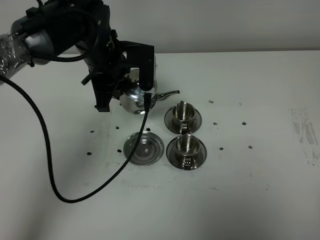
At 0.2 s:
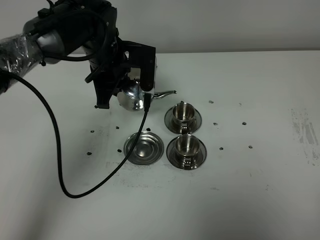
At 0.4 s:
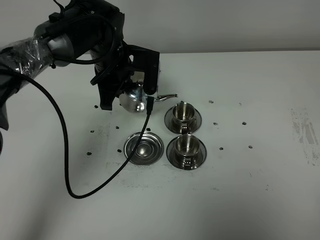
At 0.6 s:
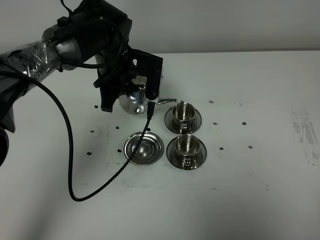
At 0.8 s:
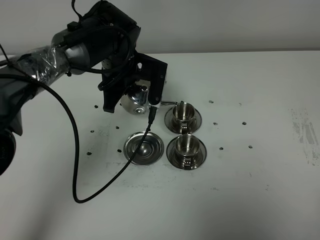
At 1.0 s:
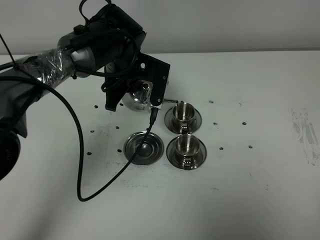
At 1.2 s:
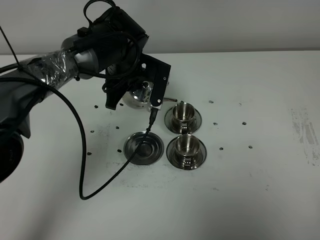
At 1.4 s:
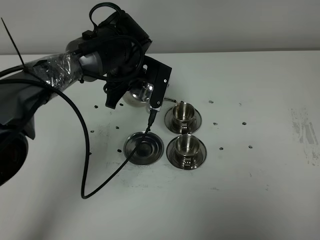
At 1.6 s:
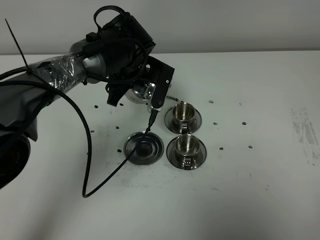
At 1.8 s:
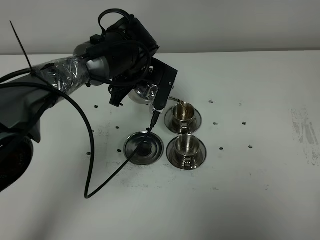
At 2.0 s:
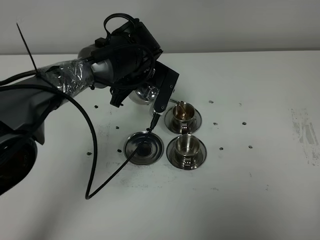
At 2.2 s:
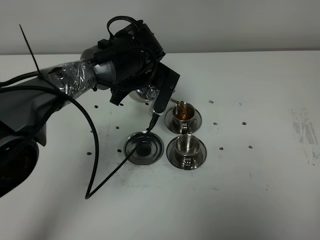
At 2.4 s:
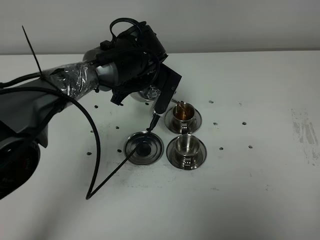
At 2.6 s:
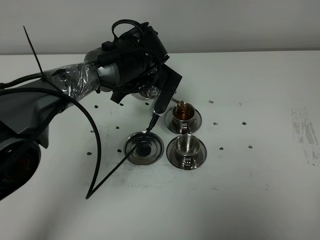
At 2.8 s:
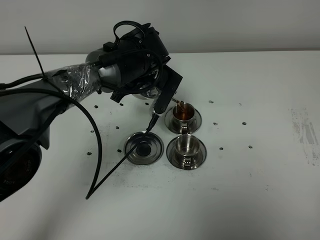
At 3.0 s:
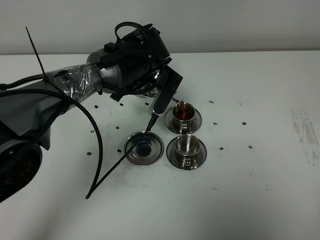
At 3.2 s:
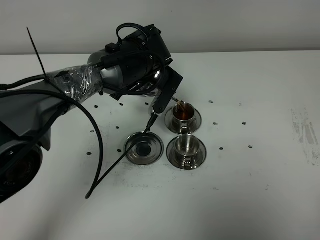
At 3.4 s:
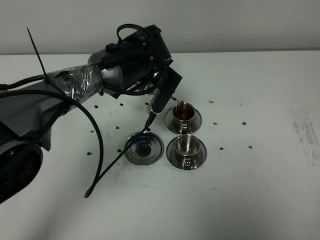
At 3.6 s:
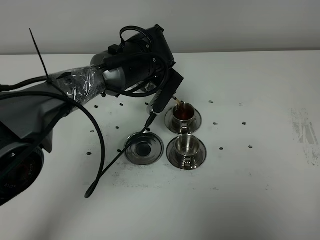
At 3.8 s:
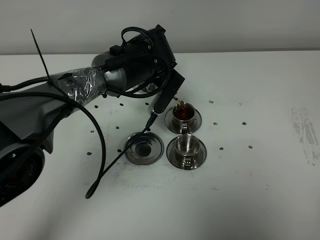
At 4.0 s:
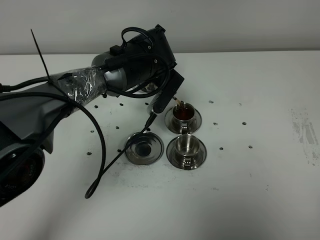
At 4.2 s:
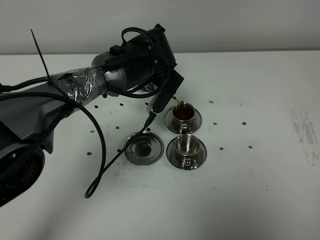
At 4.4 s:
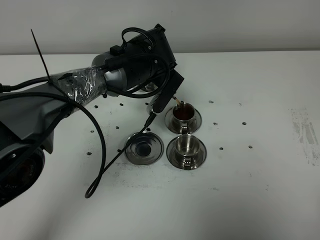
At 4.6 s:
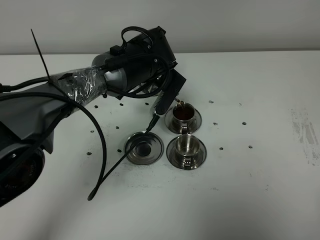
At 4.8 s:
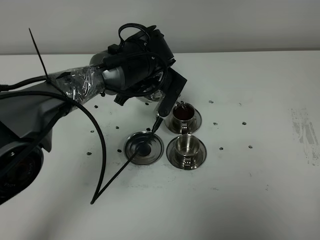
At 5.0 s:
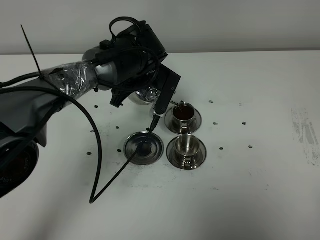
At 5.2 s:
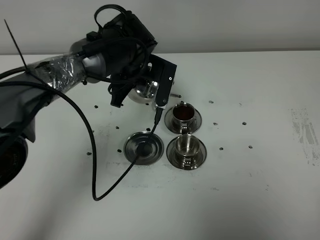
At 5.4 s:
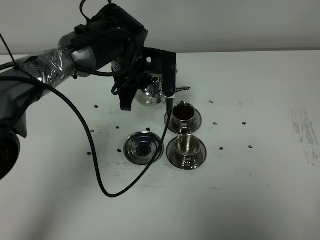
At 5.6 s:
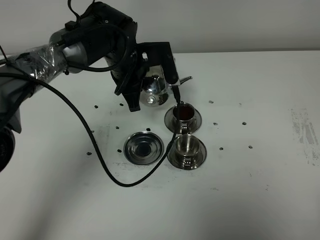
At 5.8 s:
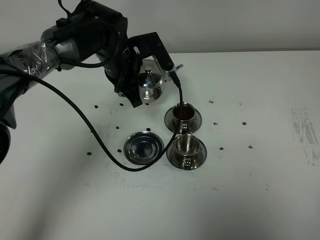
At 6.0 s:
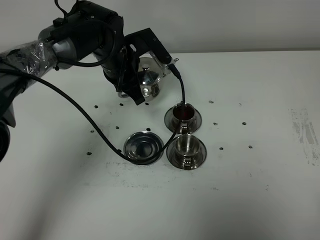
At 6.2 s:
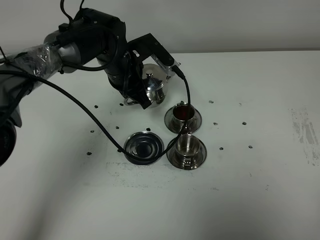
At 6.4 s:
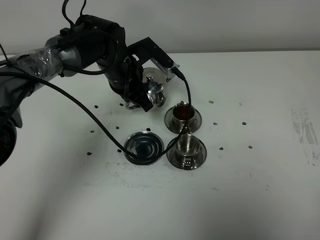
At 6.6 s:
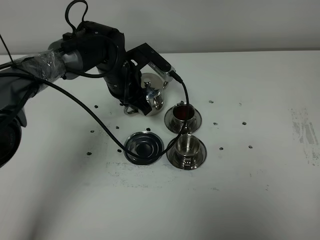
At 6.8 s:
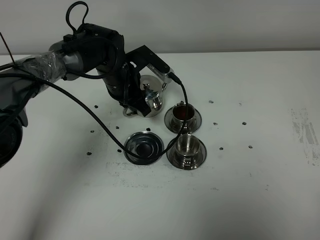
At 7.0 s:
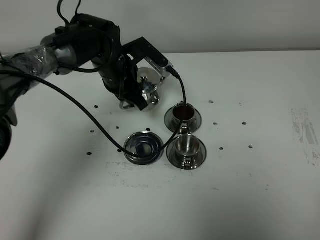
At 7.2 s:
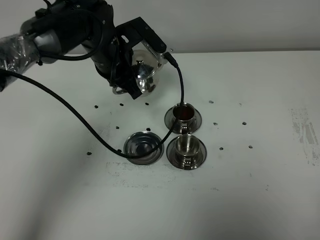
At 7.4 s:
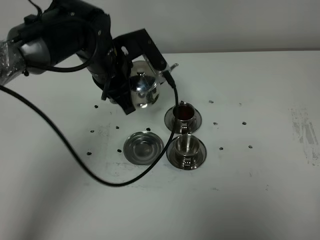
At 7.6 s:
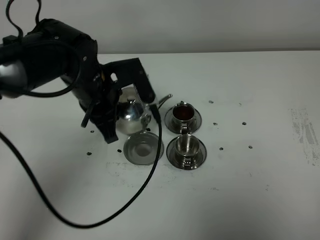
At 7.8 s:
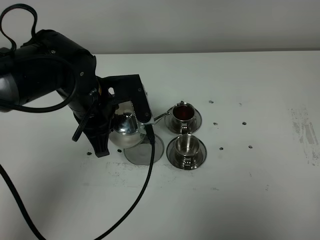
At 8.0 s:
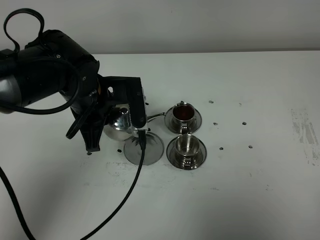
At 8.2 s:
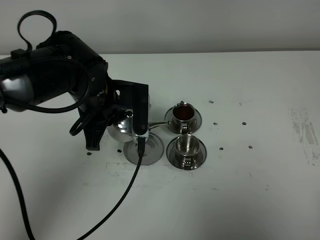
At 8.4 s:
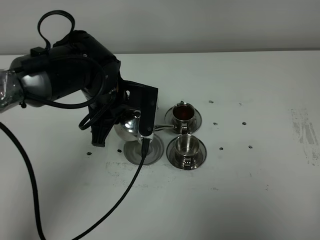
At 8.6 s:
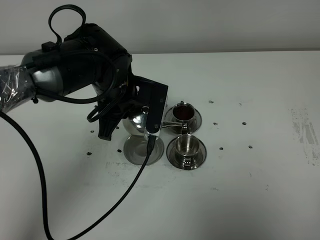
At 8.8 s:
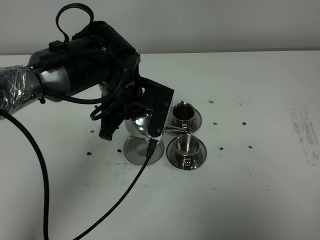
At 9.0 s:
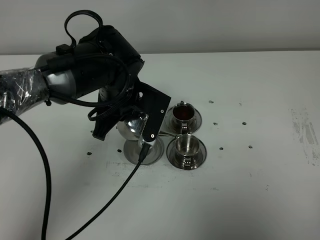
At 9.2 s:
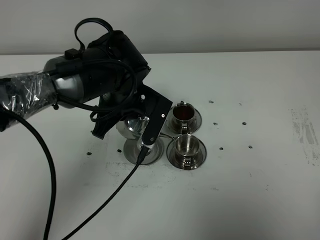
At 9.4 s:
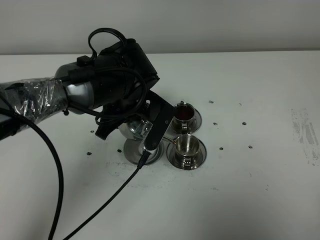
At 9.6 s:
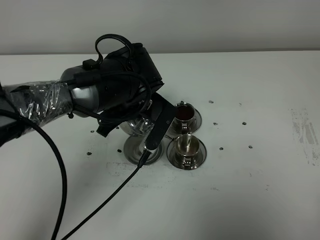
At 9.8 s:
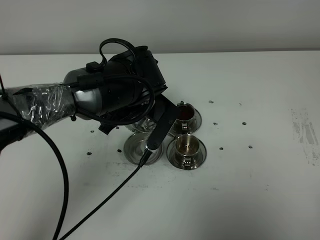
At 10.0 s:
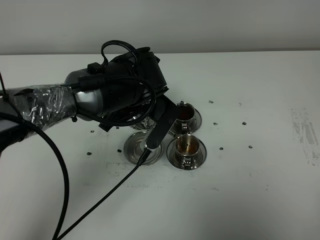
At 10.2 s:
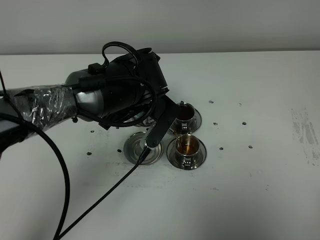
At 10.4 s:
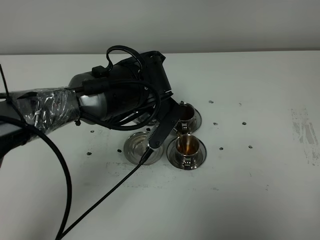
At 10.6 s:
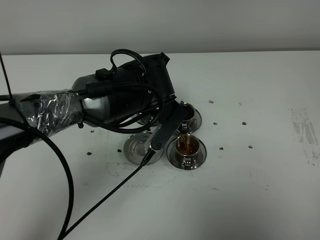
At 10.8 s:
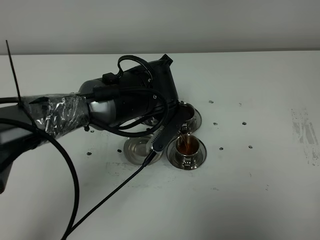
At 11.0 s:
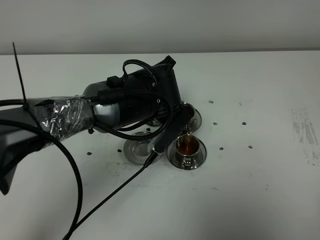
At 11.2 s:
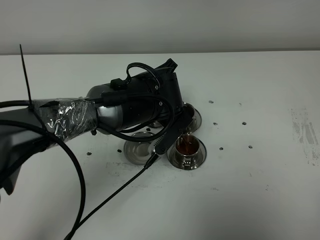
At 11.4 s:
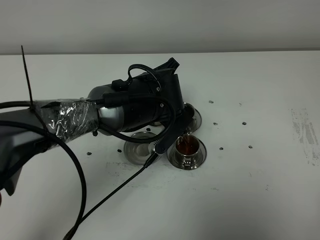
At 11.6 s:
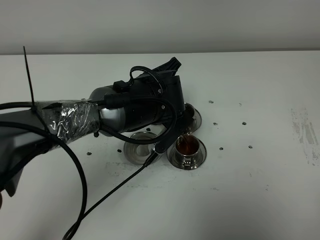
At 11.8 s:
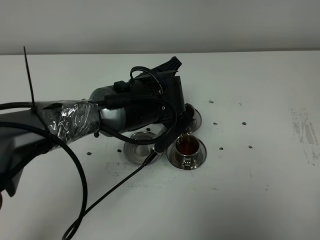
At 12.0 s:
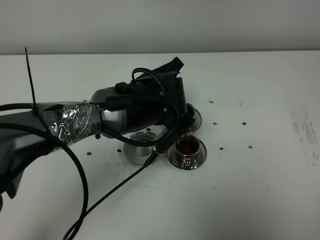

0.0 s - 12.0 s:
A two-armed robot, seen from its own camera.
Task of the whole recording: grasp the stainless steel teapot and pour the tea into the two stainless steel teacups one by one, put the stainless steel teapot back in its original place.
Step, 0.0 s - 5.2 s: Pour tea into the teacup with the left gripper.
0.0 s - 1.6 s: The left gripper changes place by approximately 5 cm.
1.6 s - 4.4 s: The grippers move only a little.
4.4 s - 6.0 s: The left gripper is displaced to the left by approximately 5 cm.
6.0 s - 7.6 s: The left gripper shifts some 10 cm backward.
7.6 s - 9.0 s: The left gripper shifts by approximately 5 cm.
10.4 s - 12.0 s: There are only small adjustments of the grippers.

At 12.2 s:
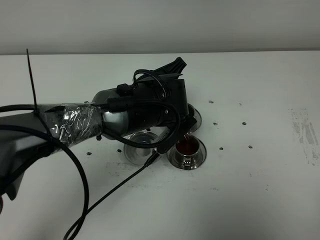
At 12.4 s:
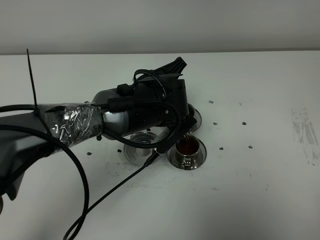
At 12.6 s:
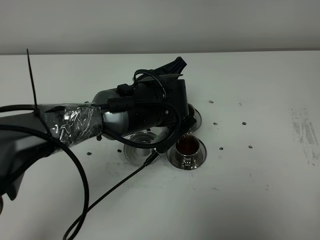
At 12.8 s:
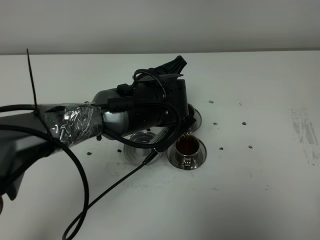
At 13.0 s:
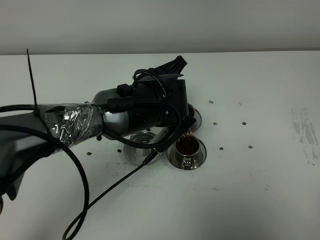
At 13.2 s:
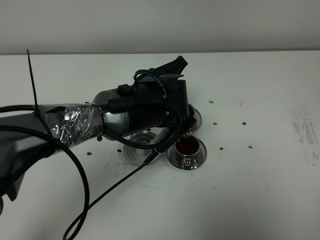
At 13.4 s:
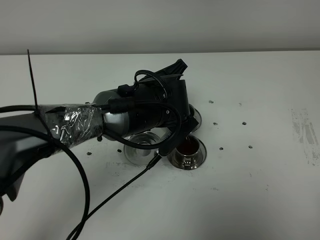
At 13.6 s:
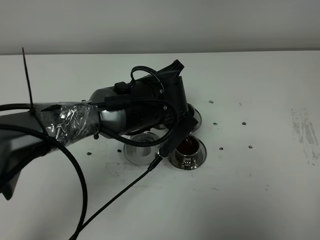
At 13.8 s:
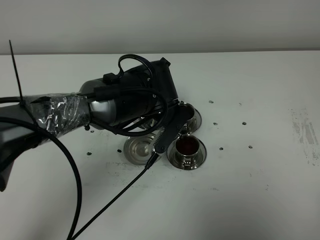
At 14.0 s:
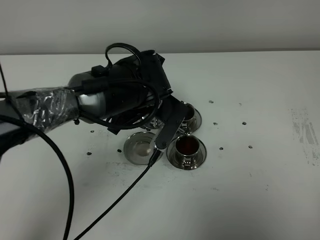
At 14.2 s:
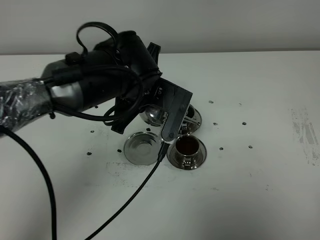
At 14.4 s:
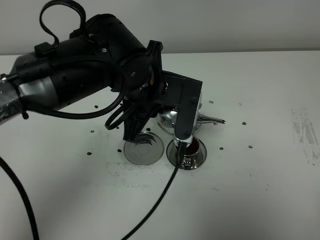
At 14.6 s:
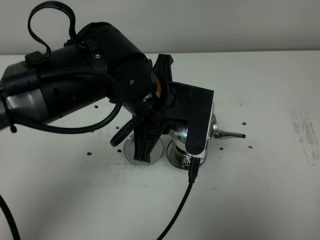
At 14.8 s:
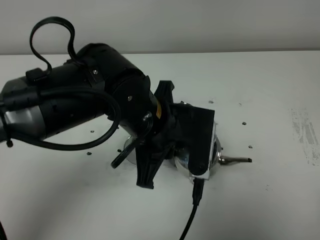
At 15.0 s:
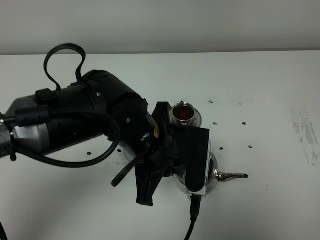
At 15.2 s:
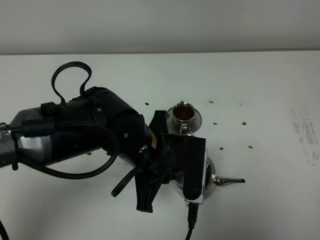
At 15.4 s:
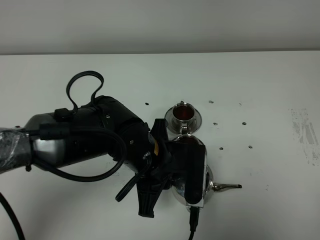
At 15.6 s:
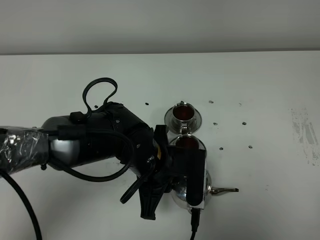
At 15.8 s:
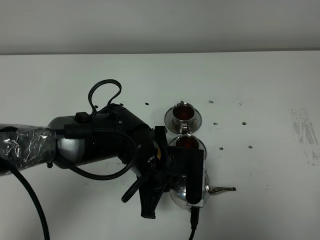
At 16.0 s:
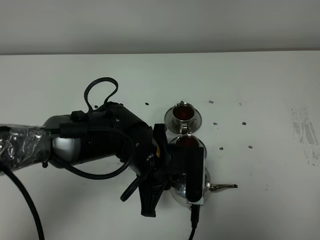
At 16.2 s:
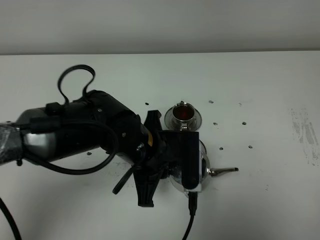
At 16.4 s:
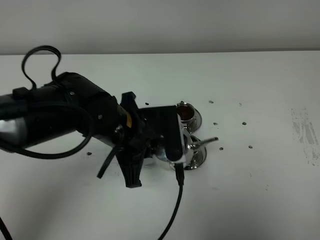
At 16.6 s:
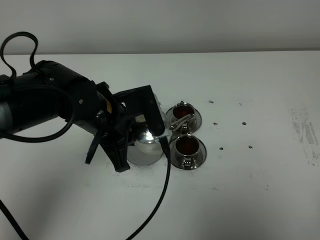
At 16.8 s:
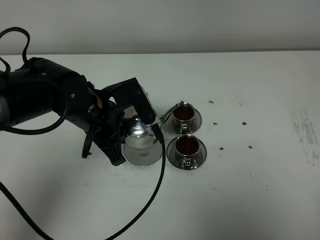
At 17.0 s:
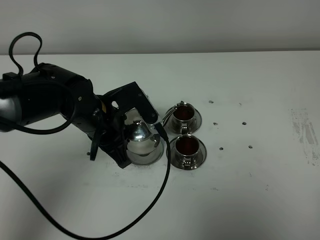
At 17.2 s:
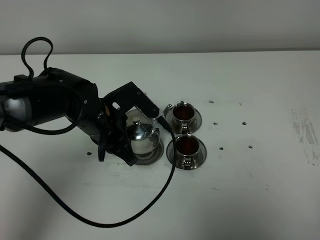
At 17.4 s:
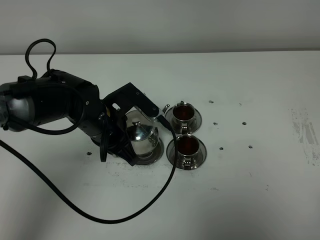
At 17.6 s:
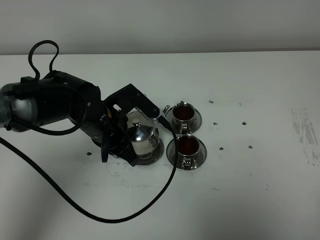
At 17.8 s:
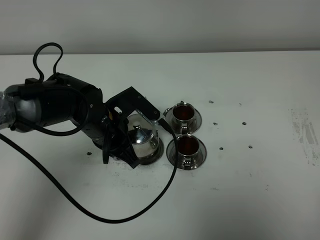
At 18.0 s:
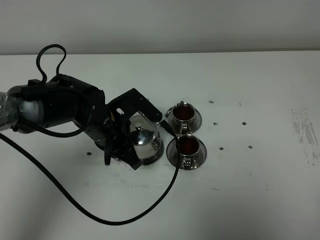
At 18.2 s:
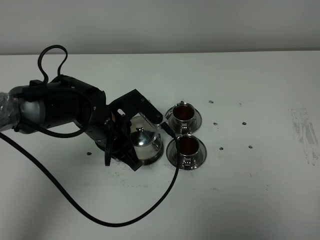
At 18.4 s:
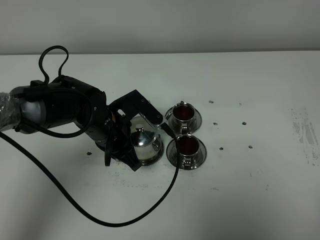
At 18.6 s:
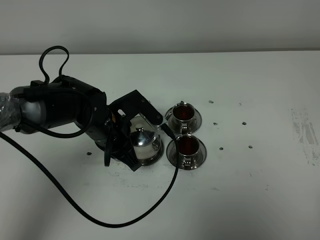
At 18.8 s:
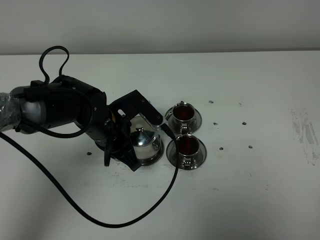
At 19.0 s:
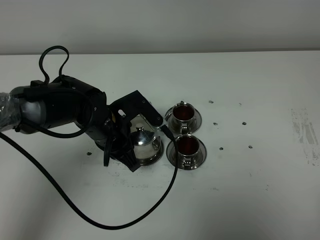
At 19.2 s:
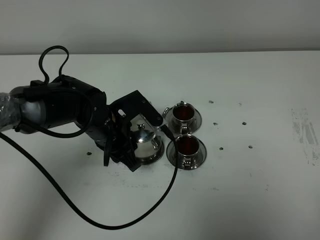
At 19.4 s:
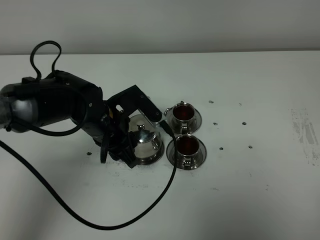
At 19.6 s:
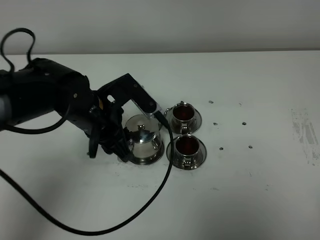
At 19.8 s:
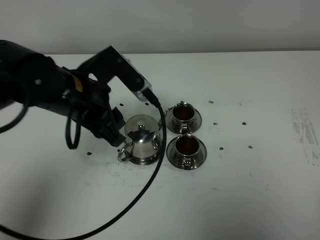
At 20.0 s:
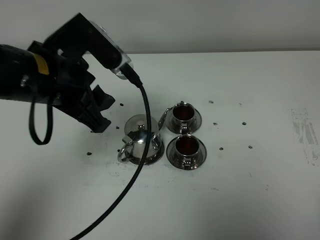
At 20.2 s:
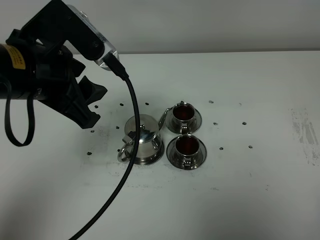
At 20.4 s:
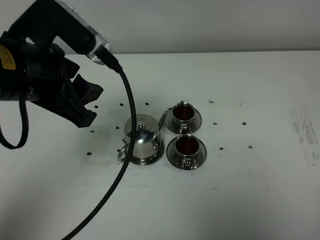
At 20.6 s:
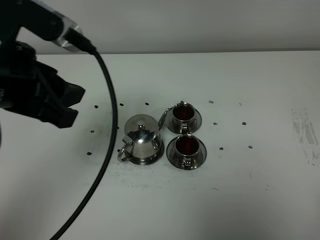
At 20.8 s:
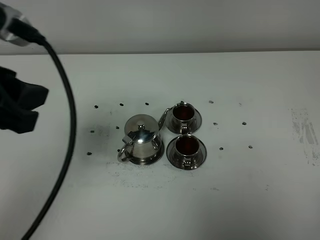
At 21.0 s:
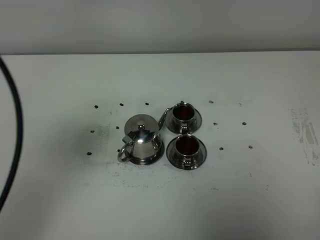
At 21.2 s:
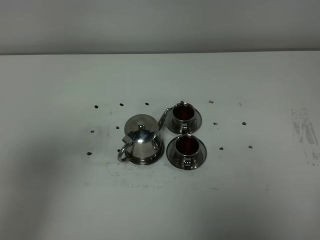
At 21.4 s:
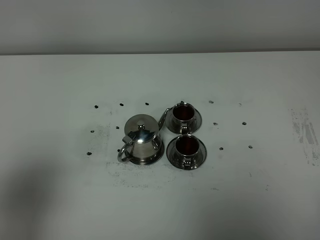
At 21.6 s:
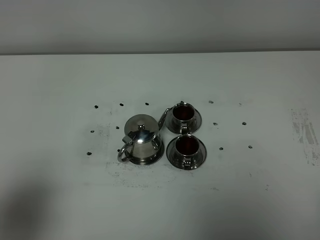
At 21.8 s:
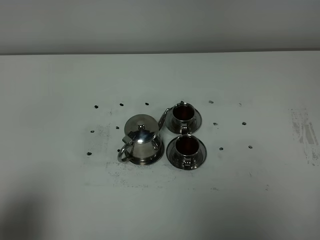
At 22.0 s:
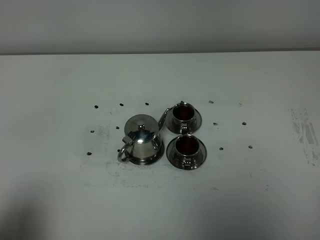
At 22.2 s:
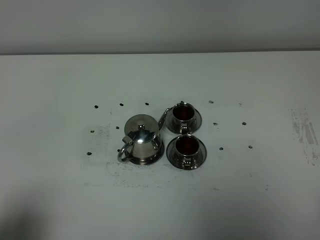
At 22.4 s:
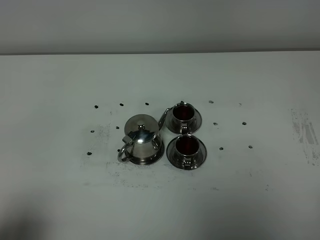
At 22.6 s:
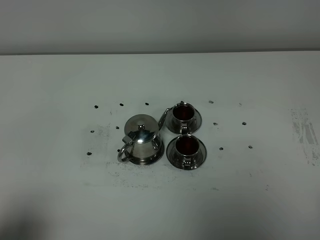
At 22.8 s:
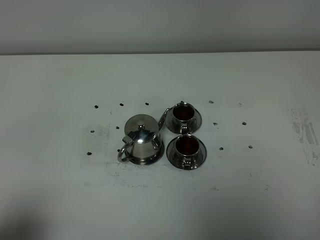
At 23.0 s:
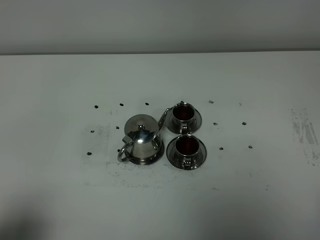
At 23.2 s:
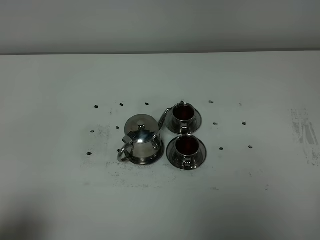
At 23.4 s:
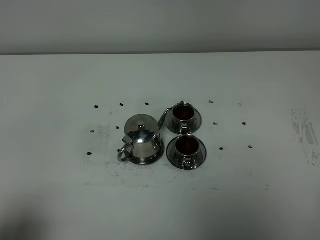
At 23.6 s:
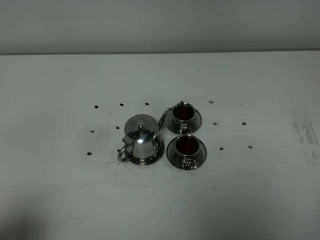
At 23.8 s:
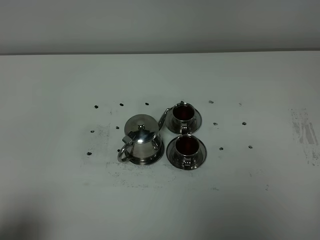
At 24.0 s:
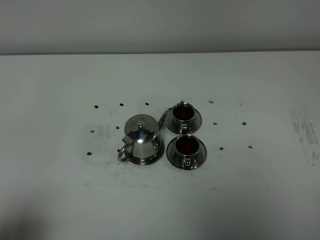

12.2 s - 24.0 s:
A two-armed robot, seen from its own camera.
Task of the whole recording: grasp the stainless steel teapot and pour the tea into the two stainless steel teacups one by one, put the stainless steel teapot back in its original place.
12.2 s - 13.6 s: The grippers move only a little.
13.6 s - 15.2 s: The left gripper goes some 10 cm backward.
15.2 s - 16.6 s: The left gripper heads to the left and forward, covering some 10 cm.
16.6 s - 18.2 s: The left gripper shifts approximately 5 cm downward.
18.2 s - 19.6 s: The left gripper travels upward by about 5 cm, and opens.
19.6 s - 21.0 s: The left gripper moves upward, backward and to the left, about 30 cm.
21.0 s - 22.6 s: The left gripper heads backward, downward and to the left, covering about 20 cm.
22.6 s - 24.0 s: Both grippers stay put.
